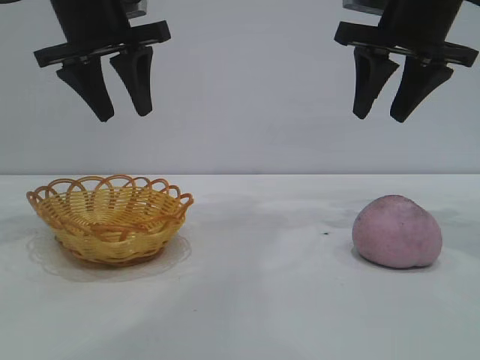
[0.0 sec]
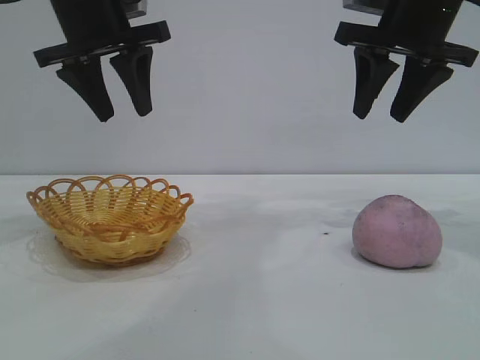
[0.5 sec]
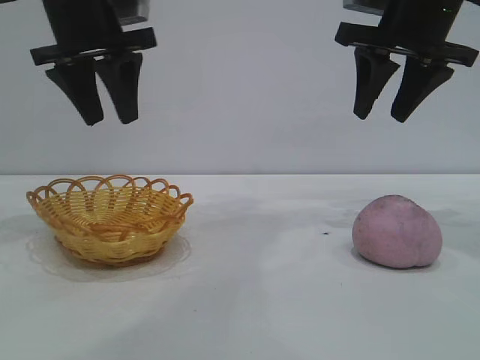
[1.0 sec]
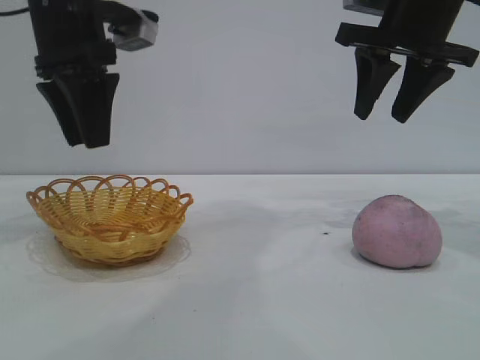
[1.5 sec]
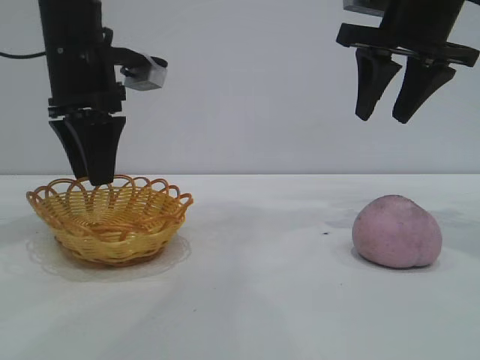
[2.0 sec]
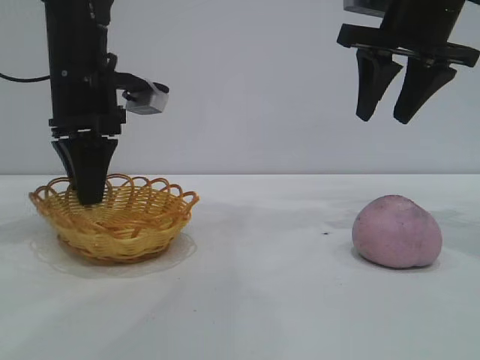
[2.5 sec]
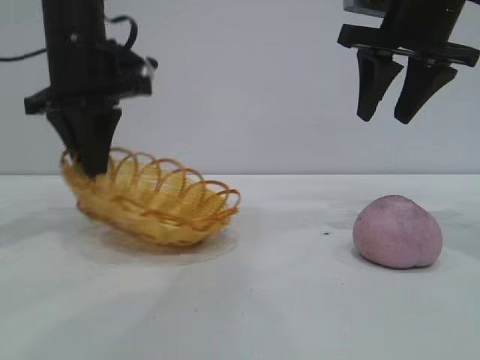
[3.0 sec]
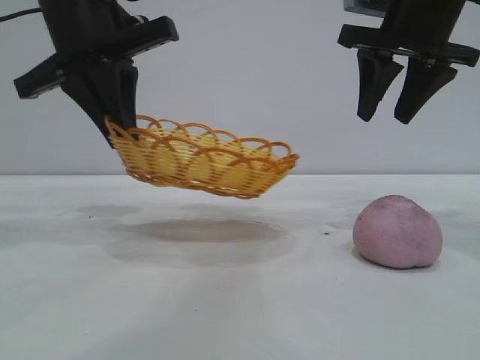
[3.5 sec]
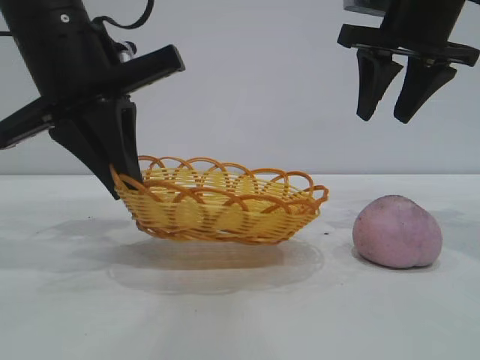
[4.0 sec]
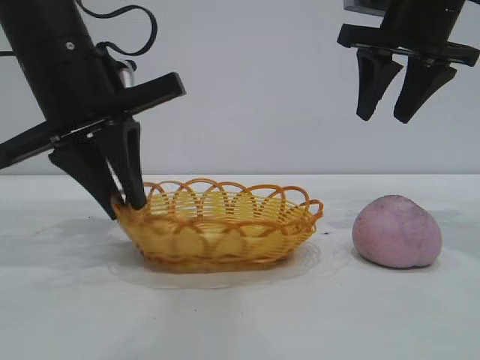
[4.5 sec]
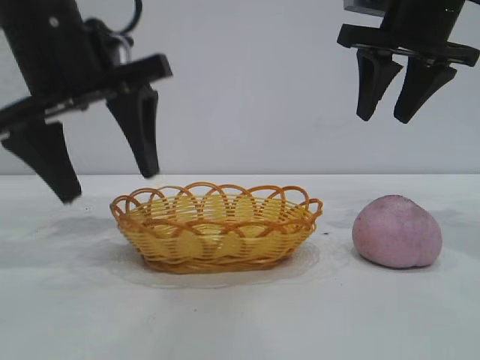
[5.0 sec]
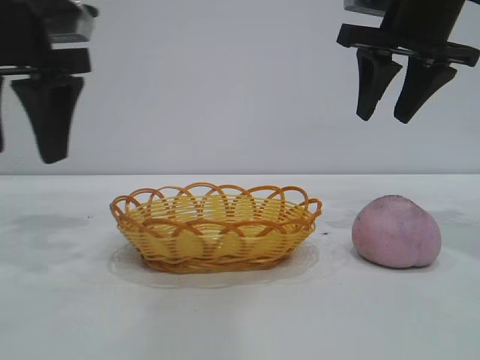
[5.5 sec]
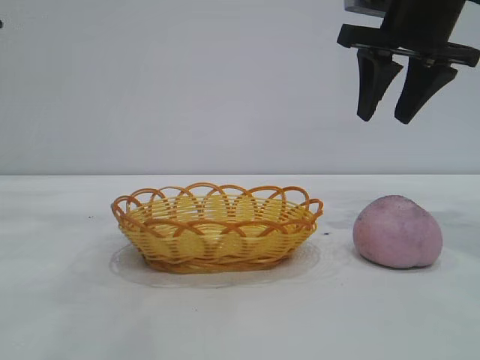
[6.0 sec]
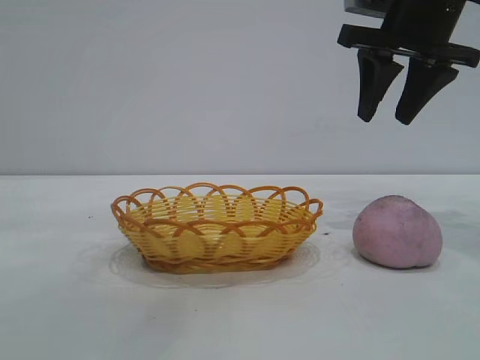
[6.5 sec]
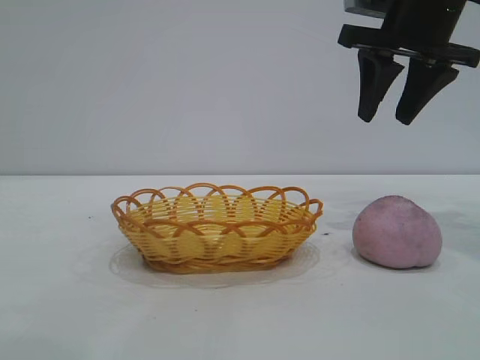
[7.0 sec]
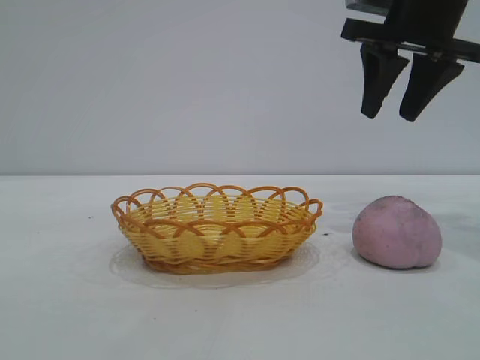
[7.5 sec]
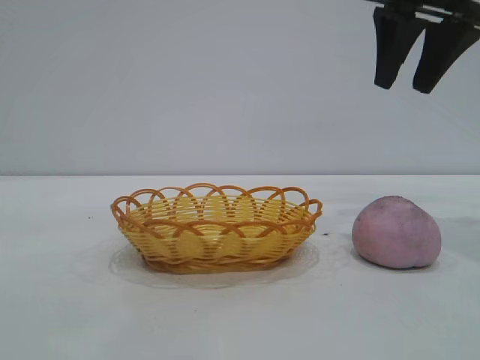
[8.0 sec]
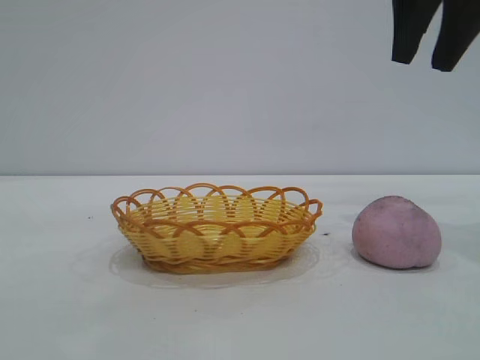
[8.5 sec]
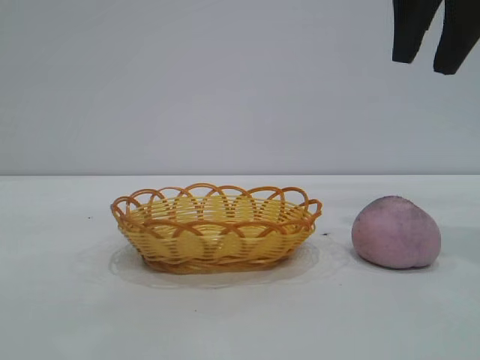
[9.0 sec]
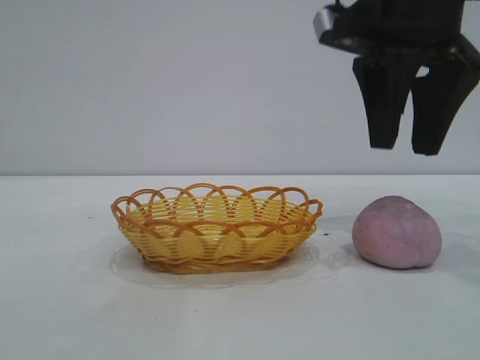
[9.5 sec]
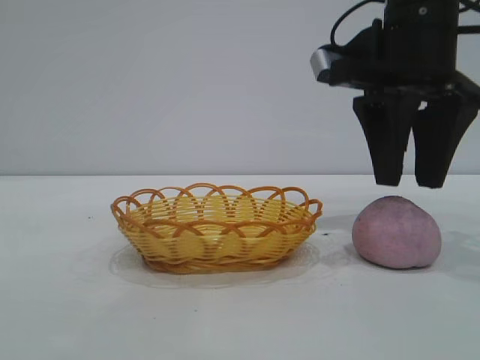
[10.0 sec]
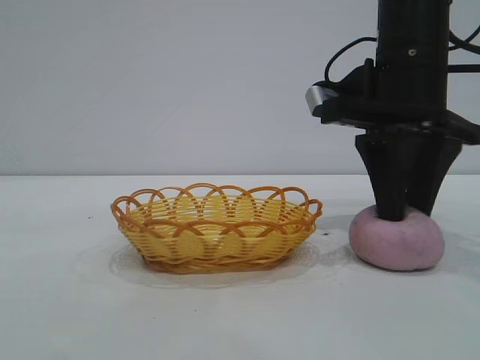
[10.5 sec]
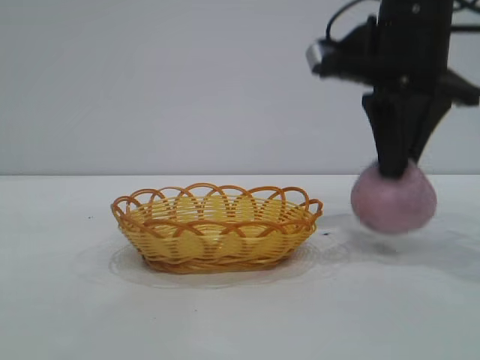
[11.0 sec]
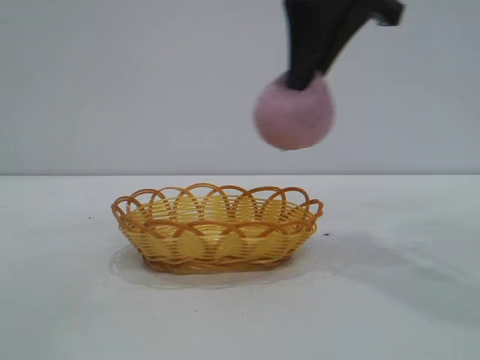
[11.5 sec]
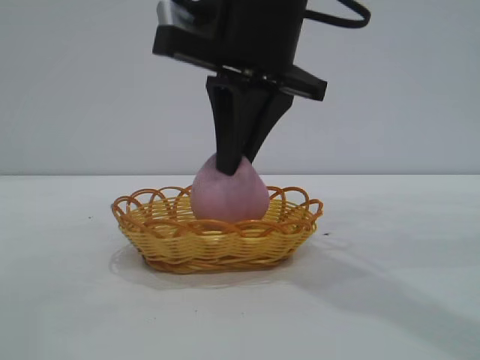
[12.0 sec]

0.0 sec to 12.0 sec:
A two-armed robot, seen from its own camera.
Task of the whole recording: pick up the peach and put it into the basket.
Step, 0.0 sec to 5.0 sec: Move the basket to the center of view.
Step, 5.5 sec to 11.0 sec: Pick up the peach.

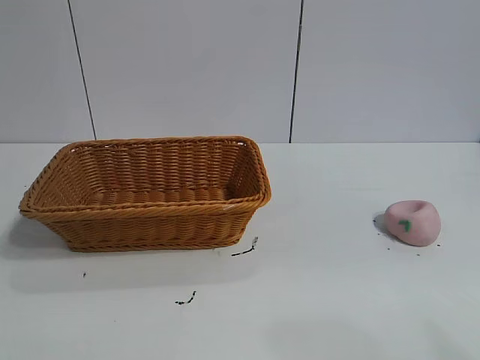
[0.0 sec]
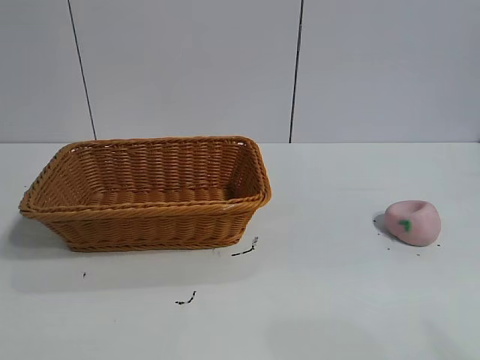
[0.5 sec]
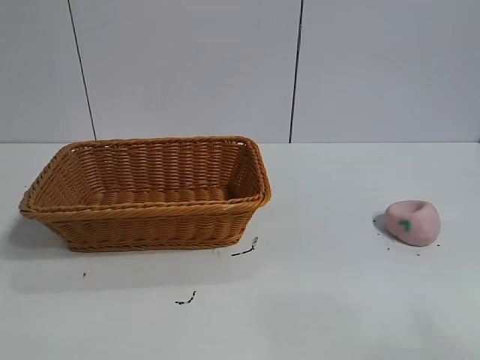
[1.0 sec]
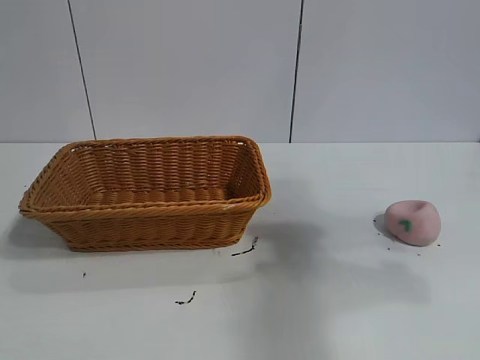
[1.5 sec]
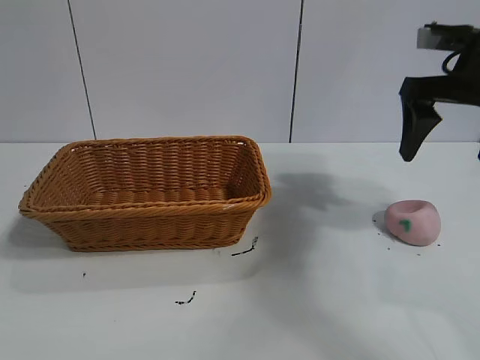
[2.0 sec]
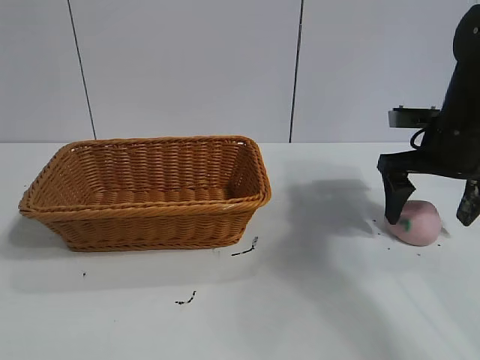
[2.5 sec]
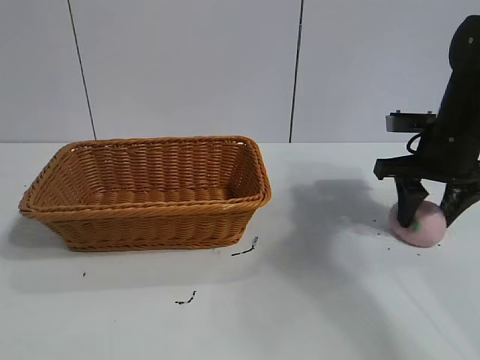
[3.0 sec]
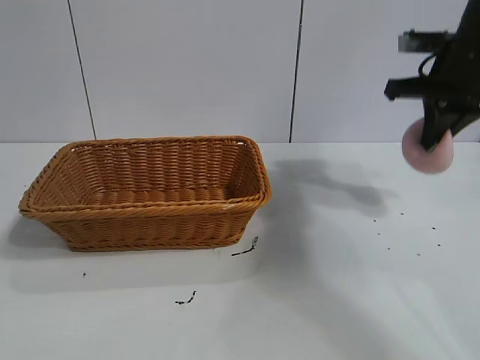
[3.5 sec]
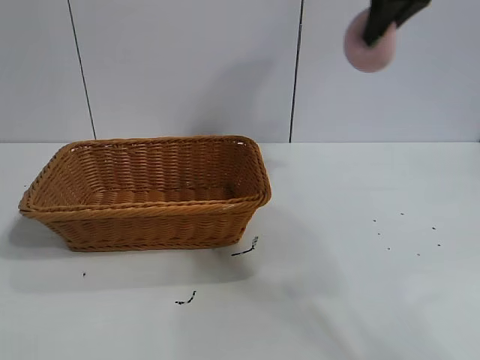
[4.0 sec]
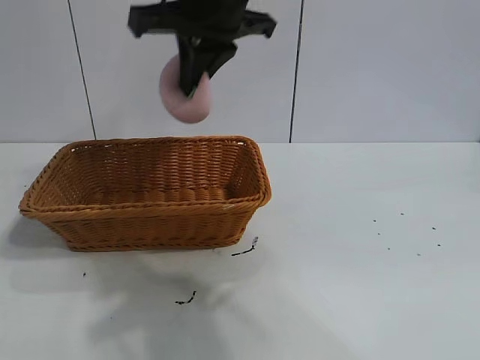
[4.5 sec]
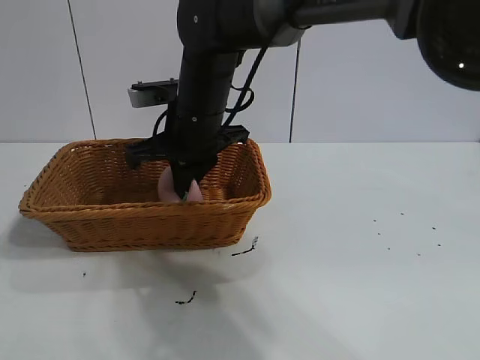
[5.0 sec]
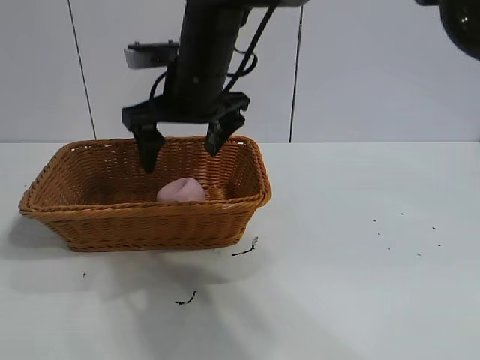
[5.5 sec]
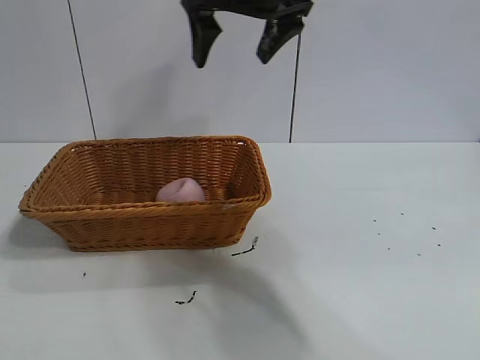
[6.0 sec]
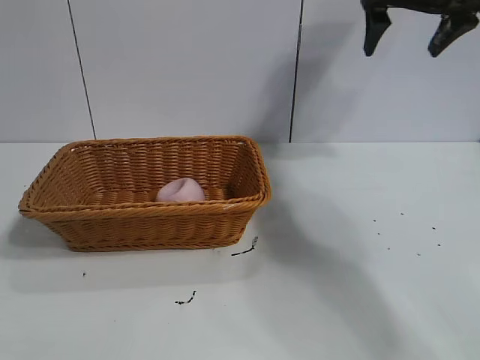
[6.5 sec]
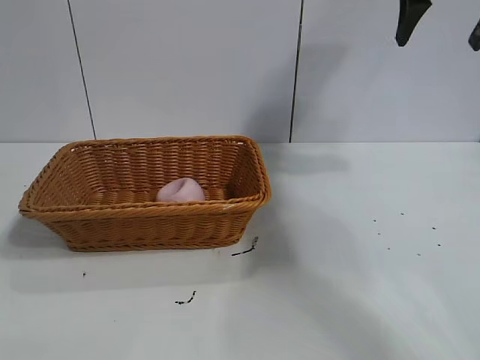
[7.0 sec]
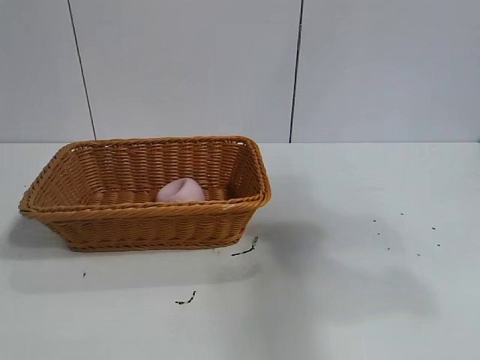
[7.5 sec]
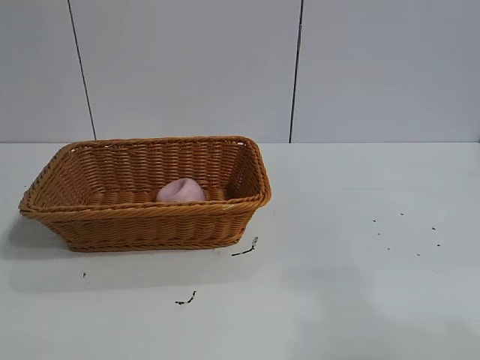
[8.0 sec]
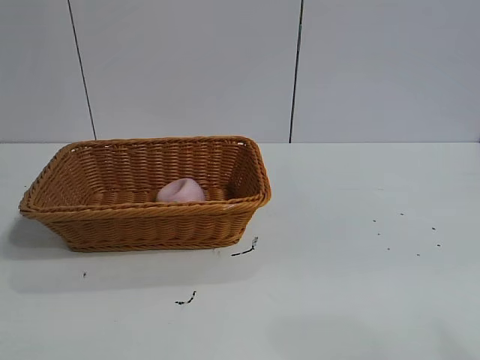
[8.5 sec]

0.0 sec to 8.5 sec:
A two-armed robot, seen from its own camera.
Task of the whole recording: pick up the peach and put it into the basket.
Step, 1.0 sec to 3.0 sec: Grasp the peach with right gripper.
Step, 3.5 sec to 5.5 sec: Place the peach in the basket with right gripper.

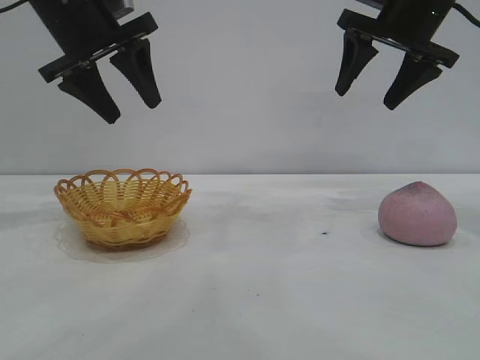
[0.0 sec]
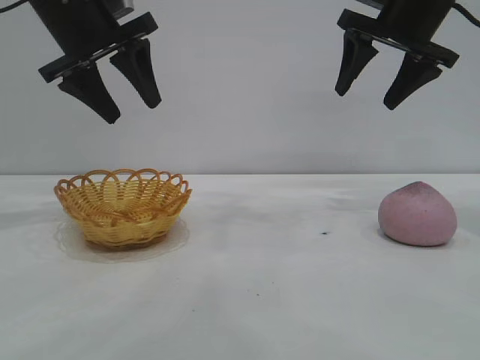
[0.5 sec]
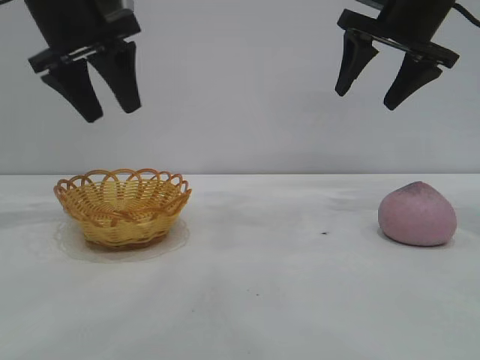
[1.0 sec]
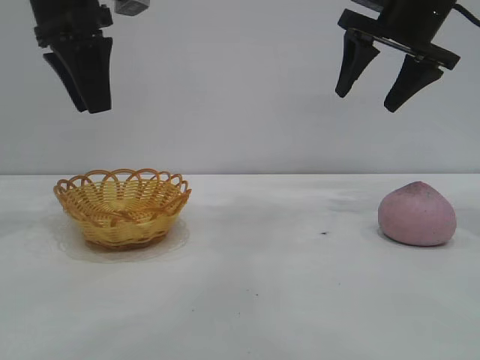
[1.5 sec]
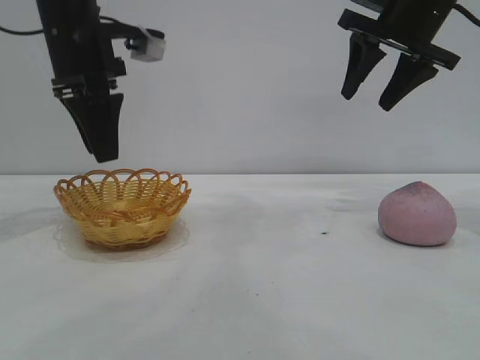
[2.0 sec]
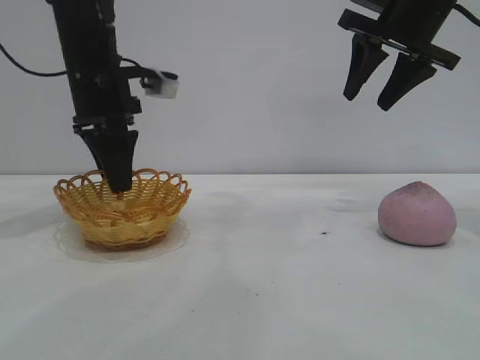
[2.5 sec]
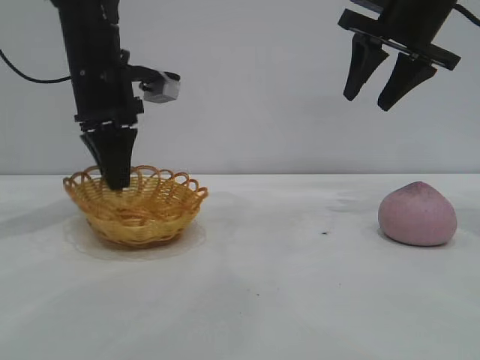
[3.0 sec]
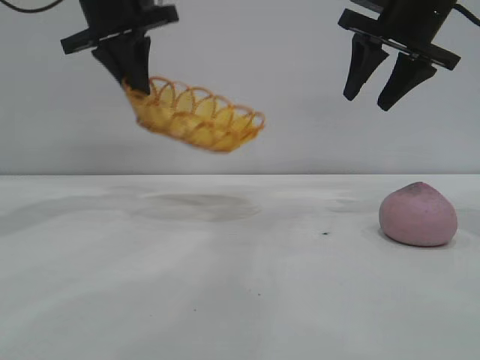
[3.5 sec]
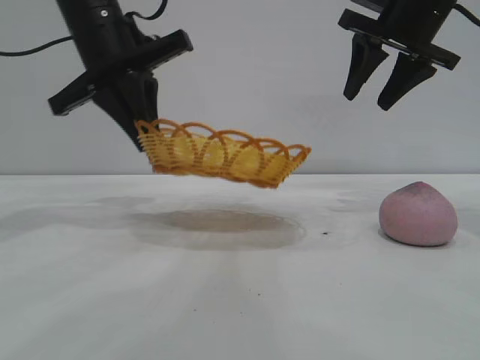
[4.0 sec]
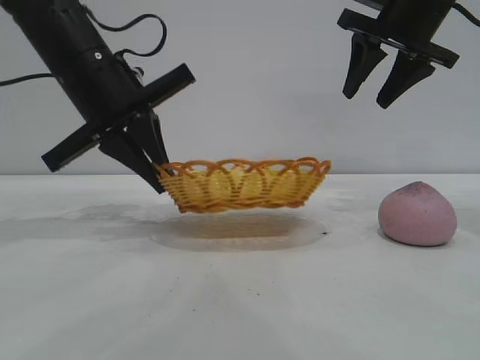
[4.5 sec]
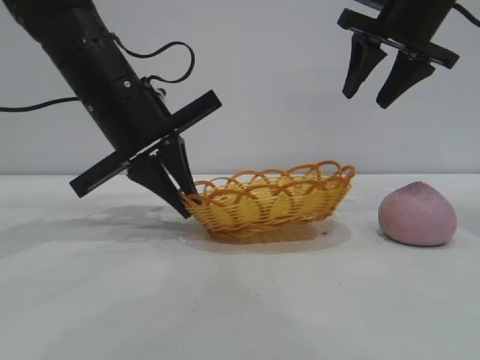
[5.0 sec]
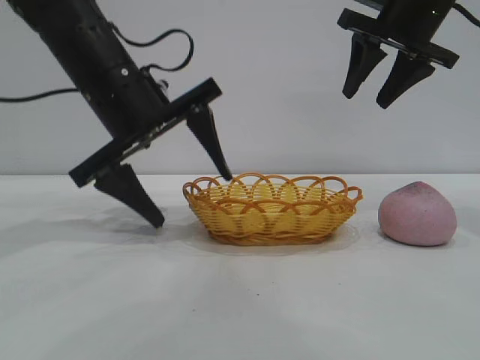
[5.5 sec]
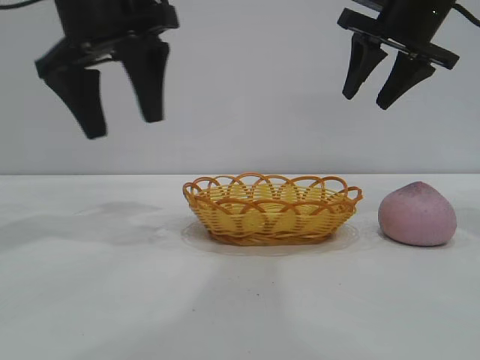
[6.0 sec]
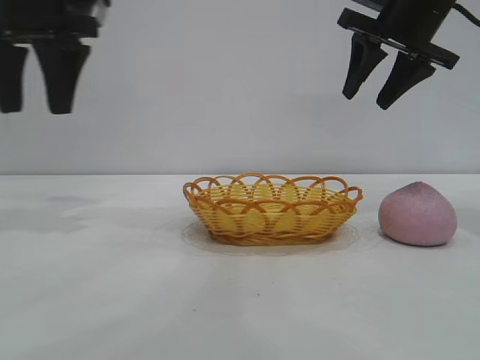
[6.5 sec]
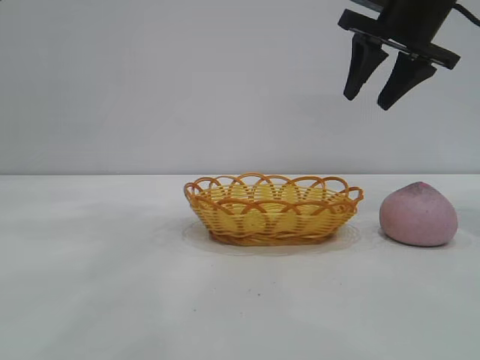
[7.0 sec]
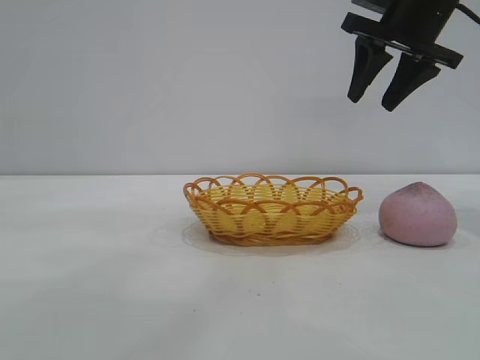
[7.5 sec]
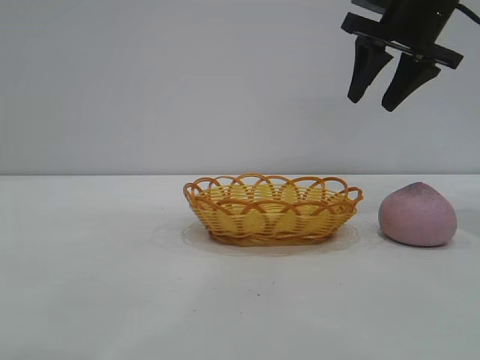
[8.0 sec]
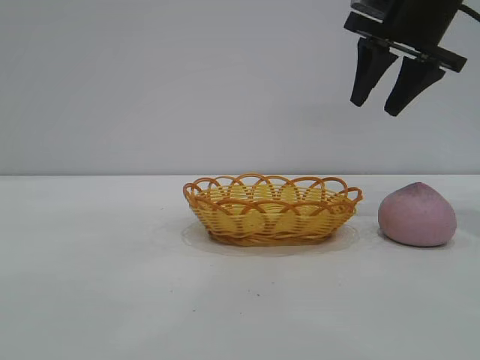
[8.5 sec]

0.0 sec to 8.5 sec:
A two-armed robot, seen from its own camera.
Task of the whole recording: pick up the peach and put it into the basket.
Step, 0.0 sec to 5.5 sec: Move the basket to the center of view.
